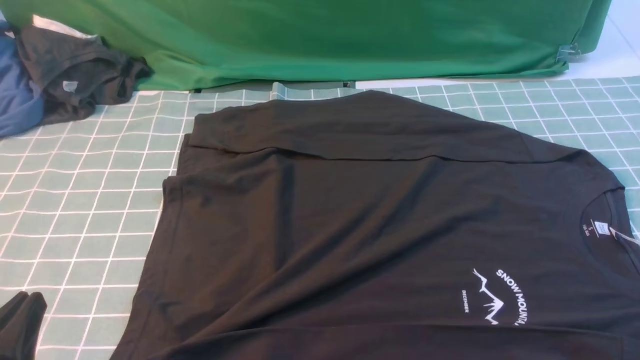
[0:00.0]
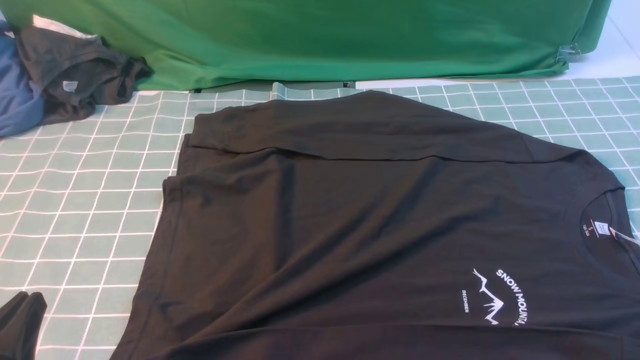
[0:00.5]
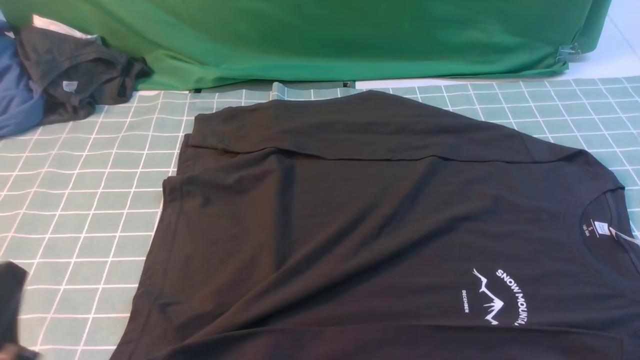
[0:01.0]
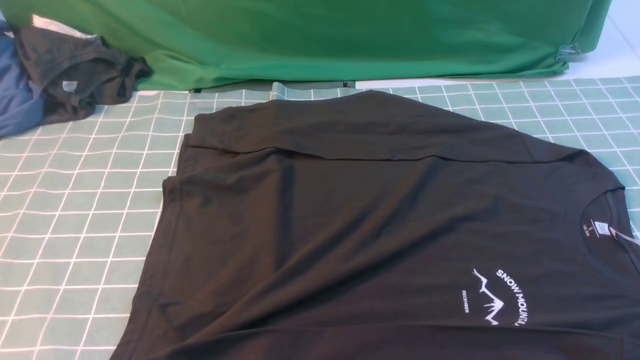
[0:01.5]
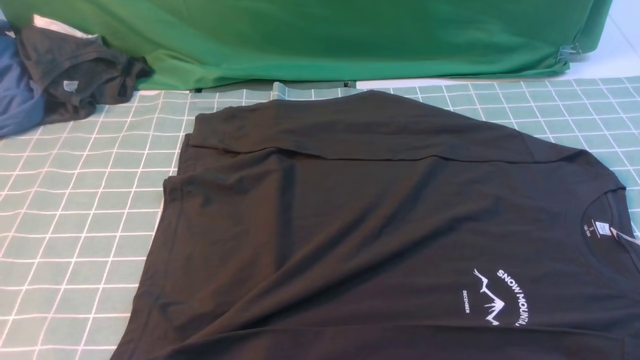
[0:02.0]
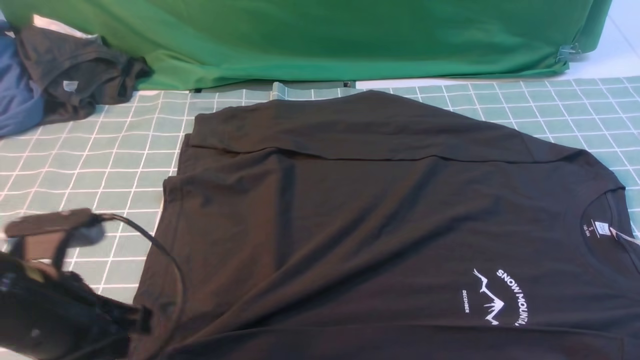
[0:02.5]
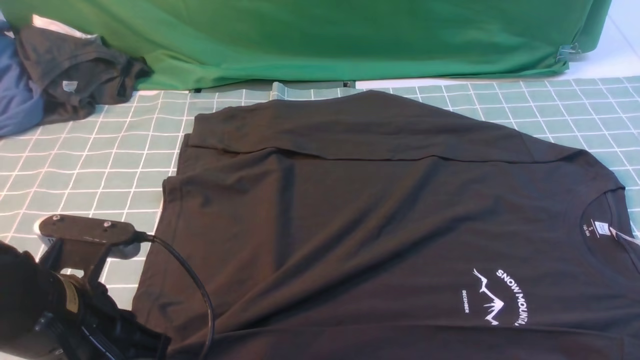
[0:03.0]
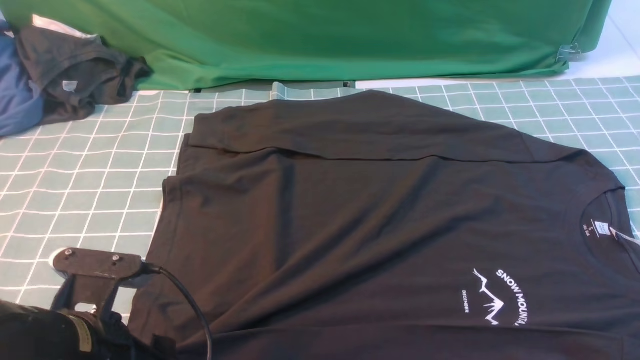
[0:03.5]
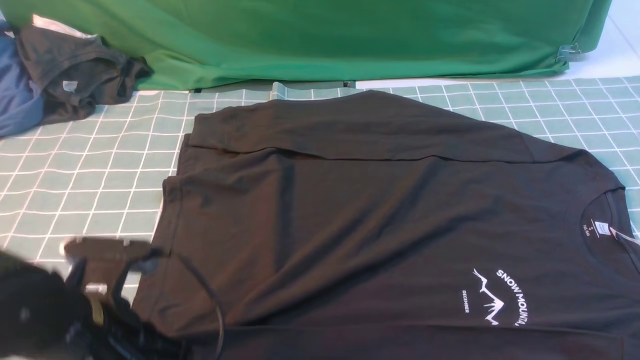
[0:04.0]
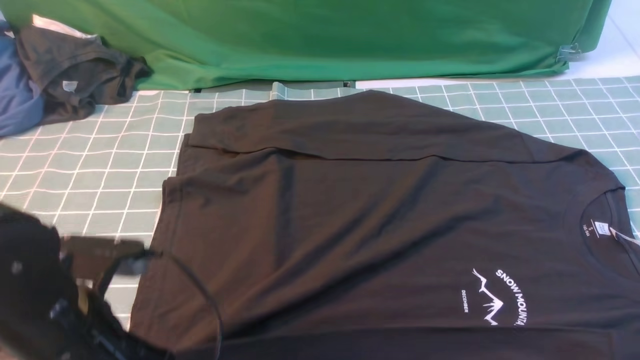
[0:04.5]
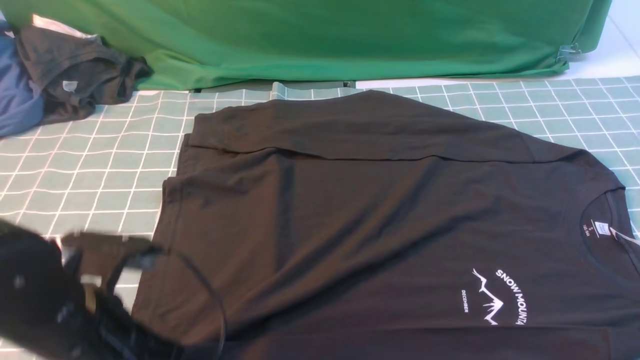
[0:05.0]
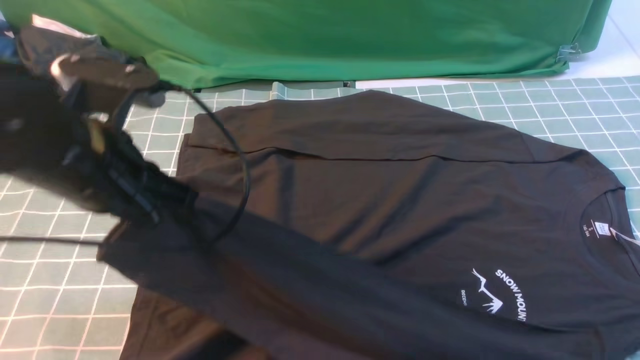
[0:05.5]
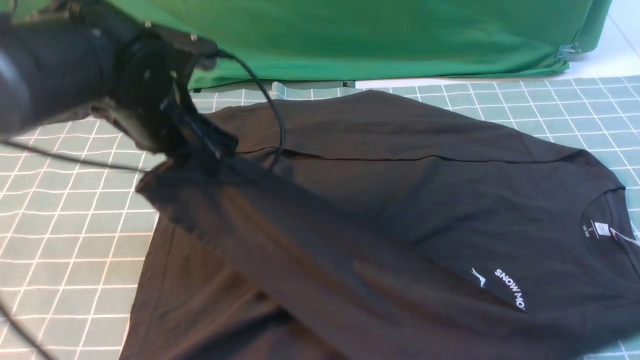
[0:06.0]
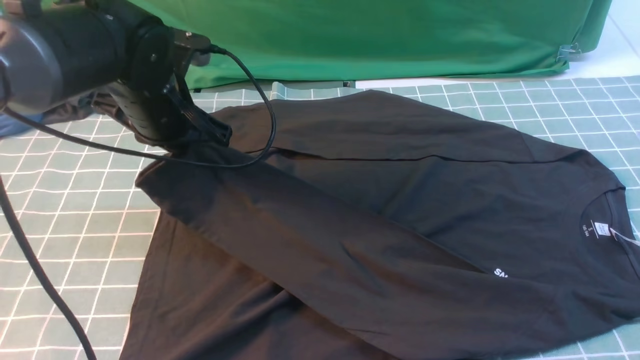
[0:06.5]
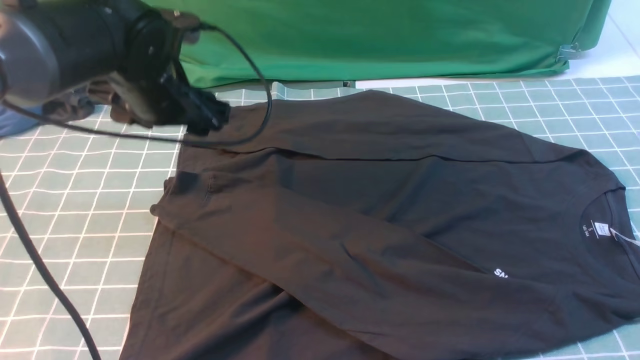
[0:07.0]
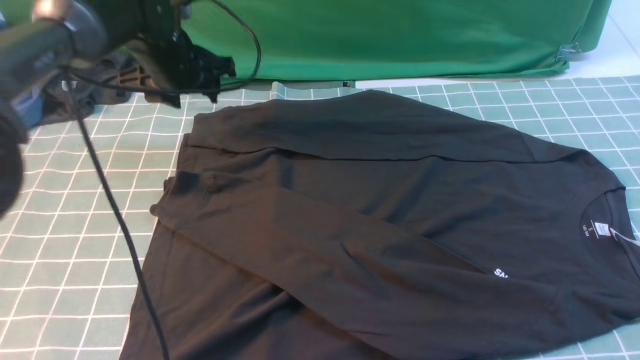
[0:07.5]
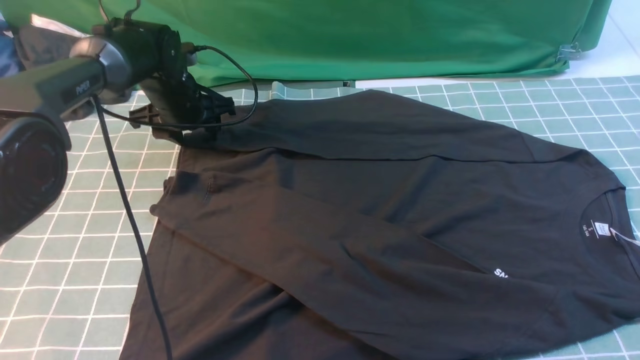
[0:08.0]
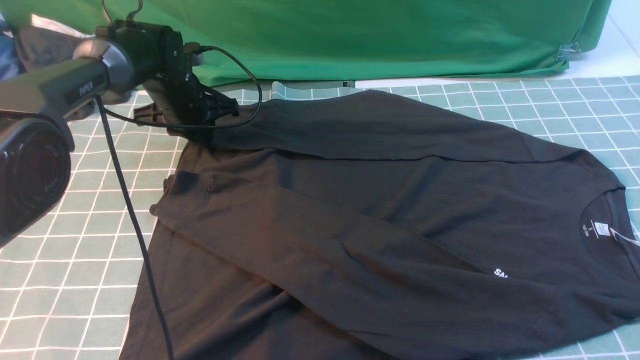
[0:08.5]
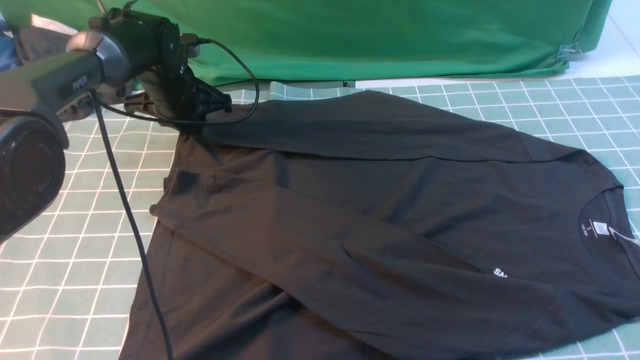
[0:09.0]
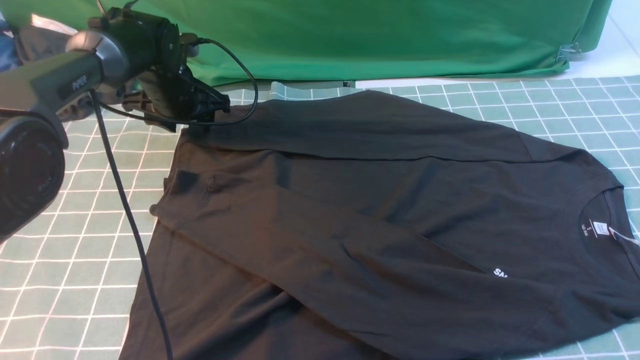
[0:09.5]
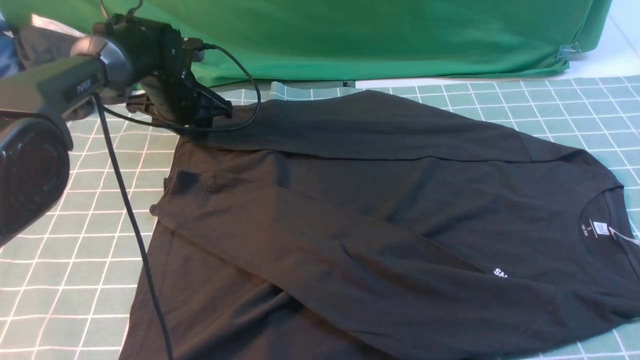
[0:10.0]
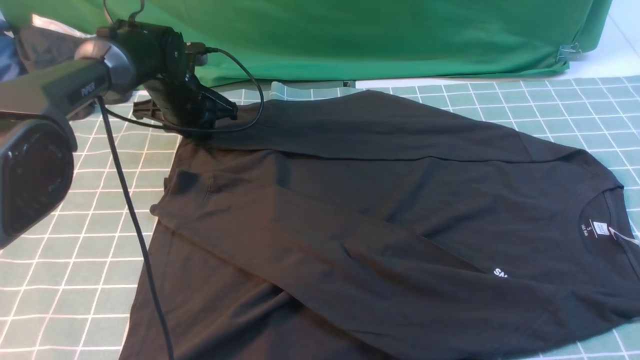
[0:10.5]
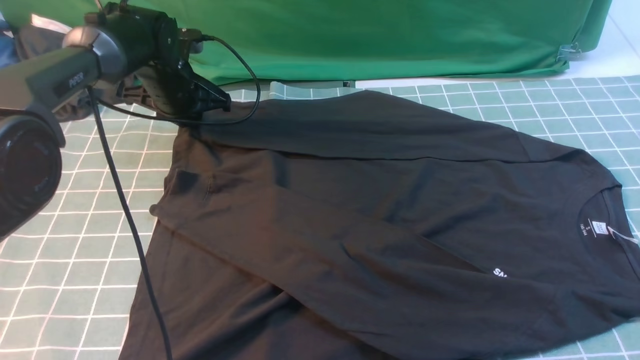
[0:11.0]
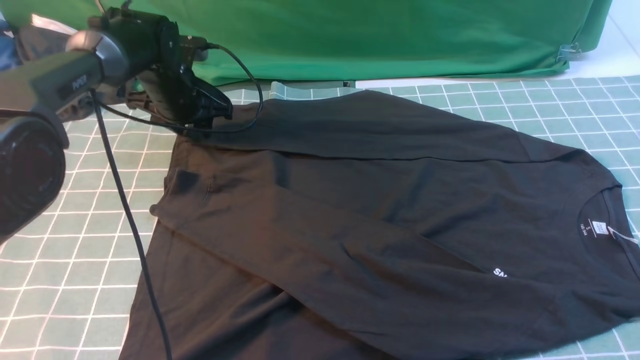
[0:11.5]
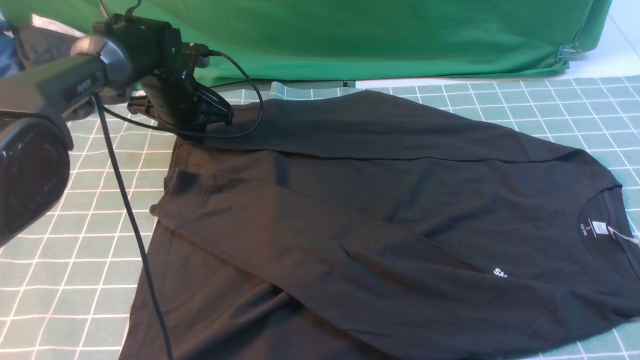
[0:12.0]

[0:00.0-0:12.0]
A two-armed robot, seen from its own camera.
Step, 0:00.0 to 0:05.0: use the left arm to clamp the cuff closest to it.
Step, 0:05.5 to 0:07.0: use the left arm to drag and place the cuff at the centered position on the left edge of the fabric.
0:00.0 to 0:02.0: The left gripper goes approximately 15 cm upward.
0:02.0 to 0:04.0: The left gripper travels downward, forward and to the right by about 15 cm, and opens, then closes once more.
0:04.0 to 0:06.0: The left gripper moves forward and upward, about 20 cm.
0:06.0 to 0:08.0: The left gripper travels forward and downward by roughly 20 cm, and opens up.
0:08.0 to 0:10.0: The left gripper closes, then reopens.
0:10.0 to 0:12.0: The left gripper closes up.

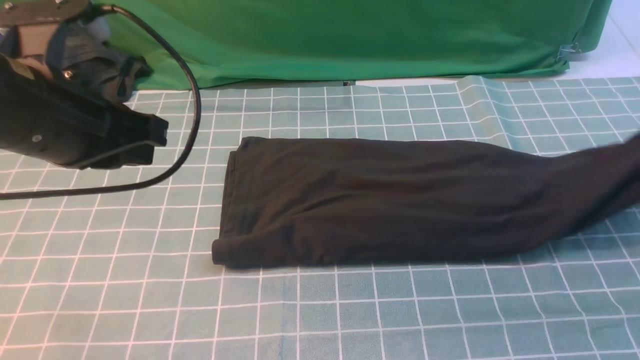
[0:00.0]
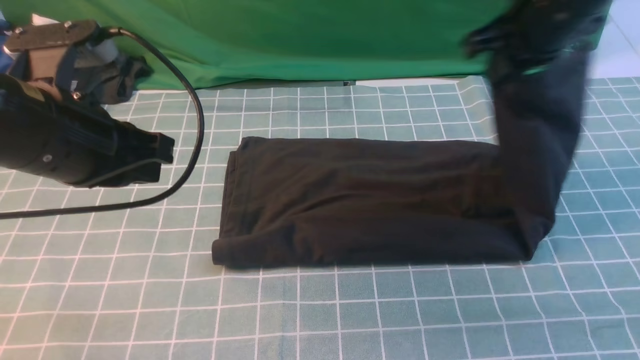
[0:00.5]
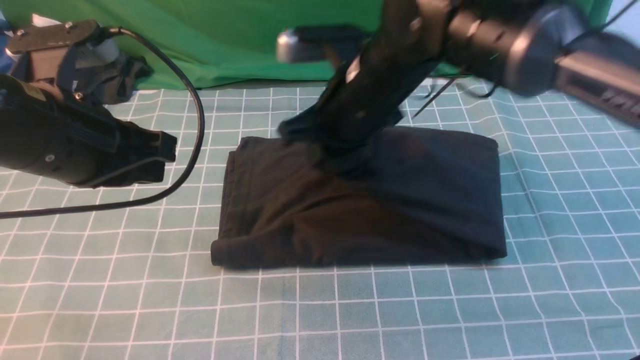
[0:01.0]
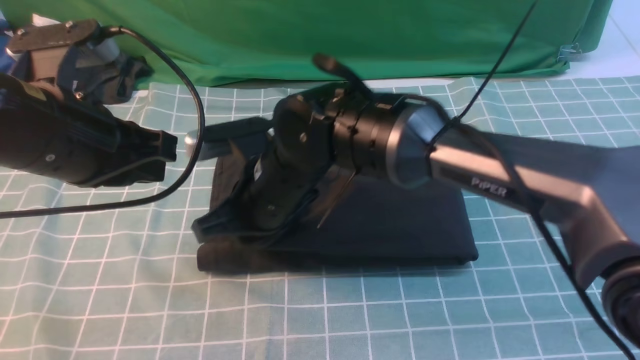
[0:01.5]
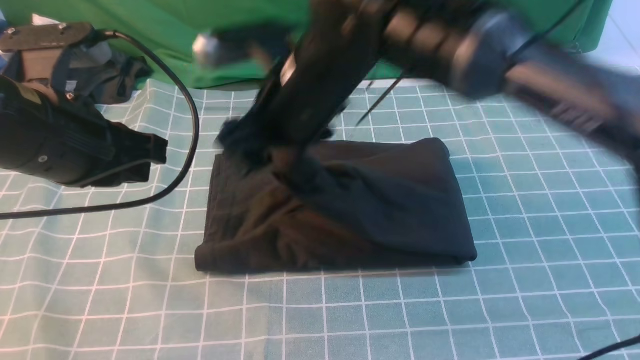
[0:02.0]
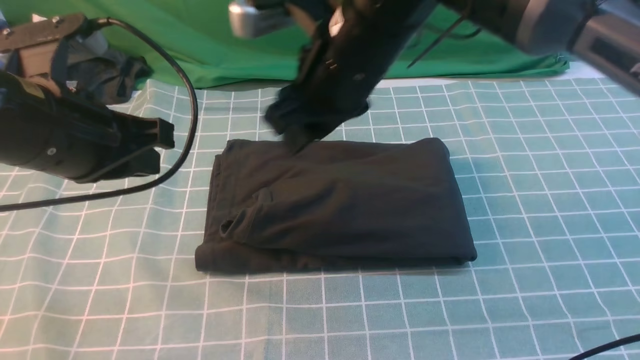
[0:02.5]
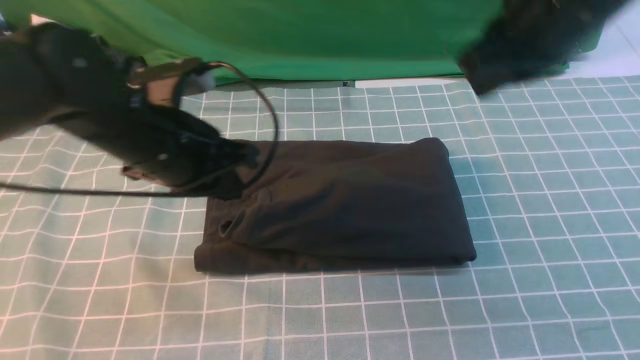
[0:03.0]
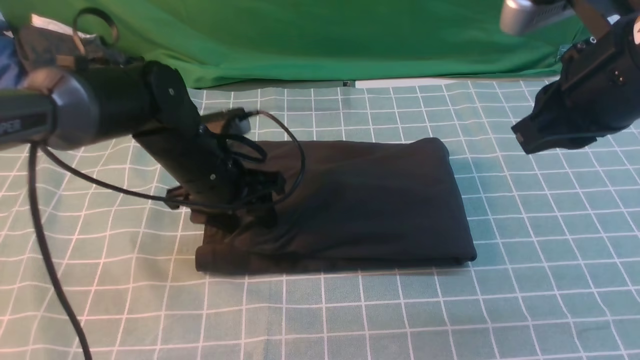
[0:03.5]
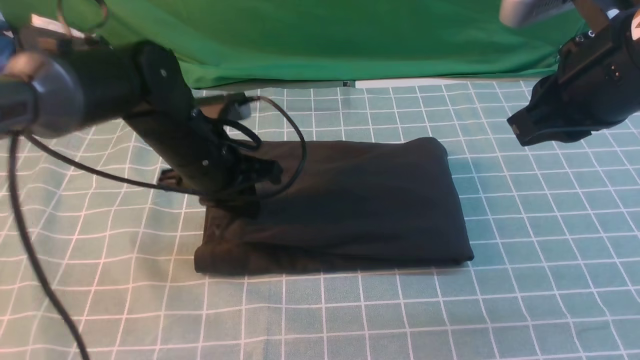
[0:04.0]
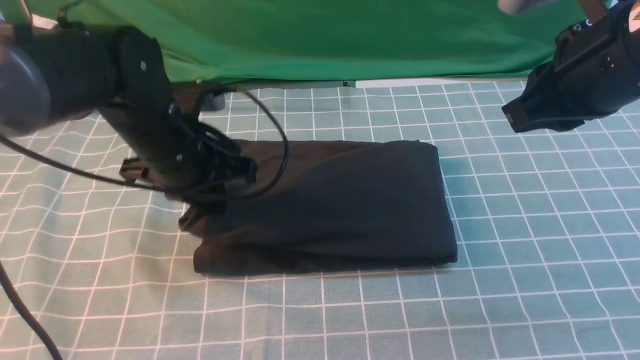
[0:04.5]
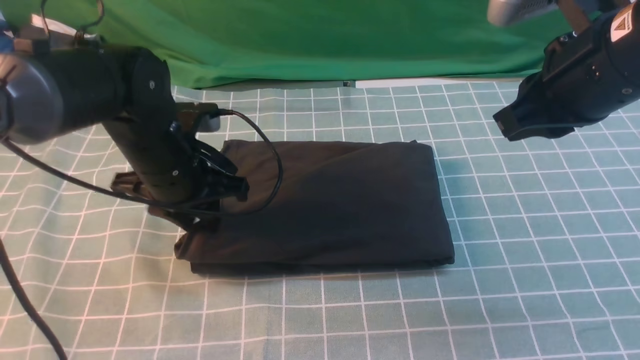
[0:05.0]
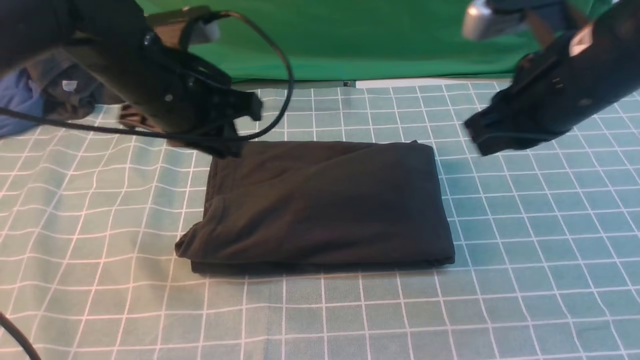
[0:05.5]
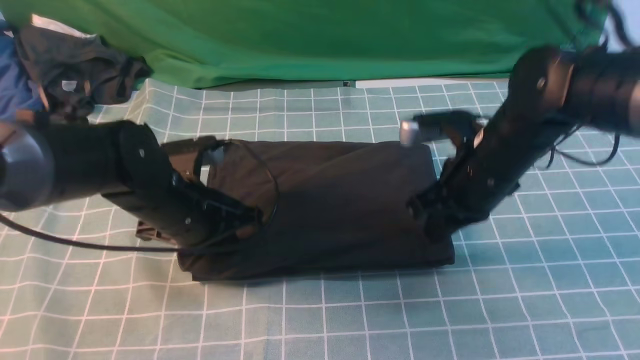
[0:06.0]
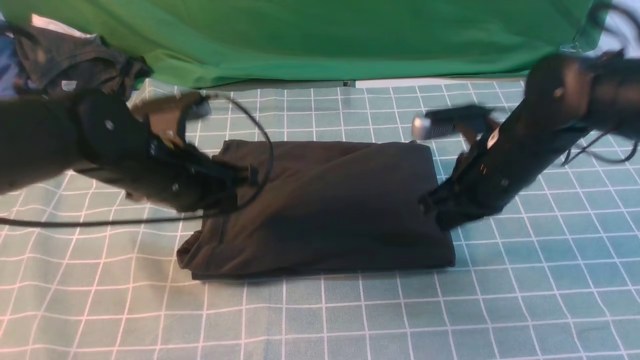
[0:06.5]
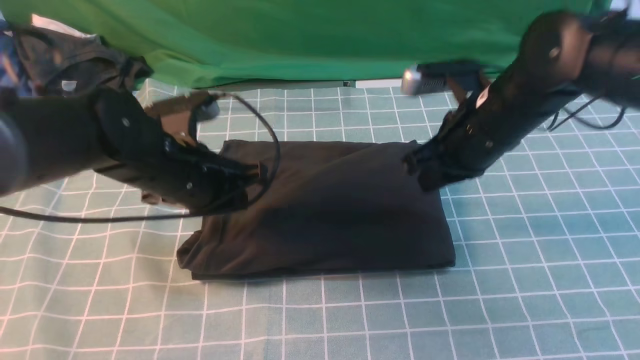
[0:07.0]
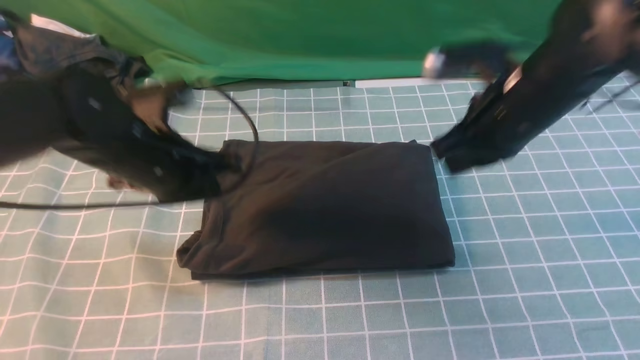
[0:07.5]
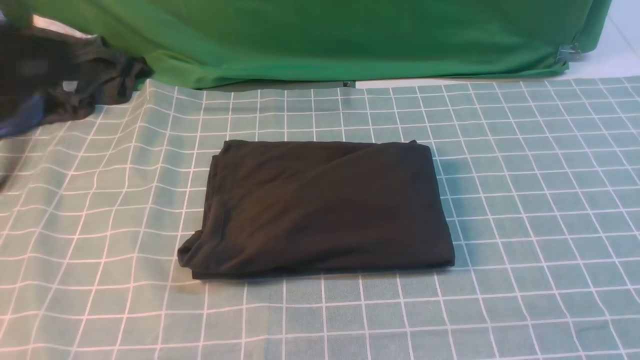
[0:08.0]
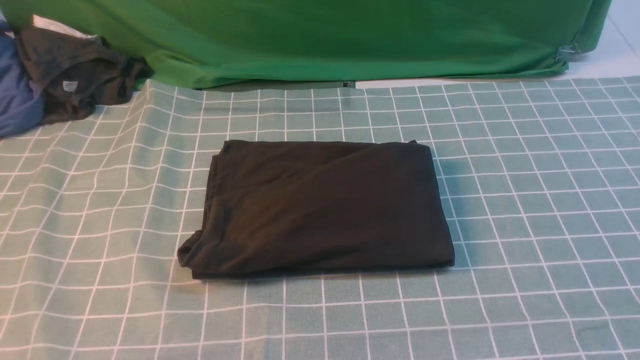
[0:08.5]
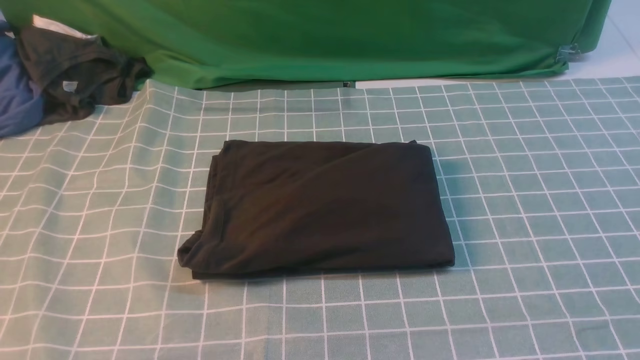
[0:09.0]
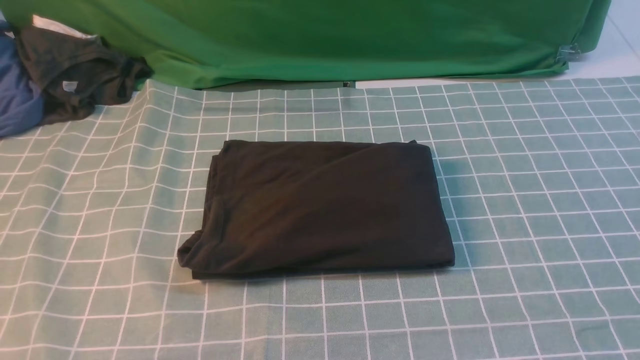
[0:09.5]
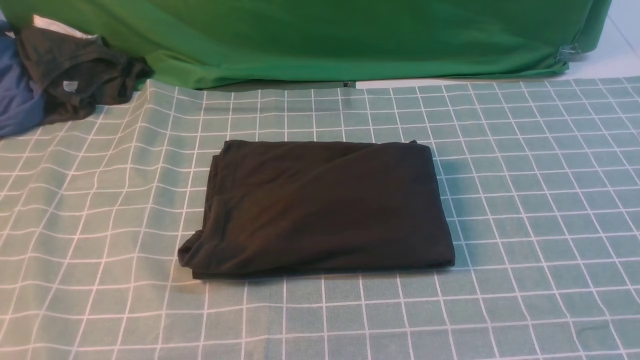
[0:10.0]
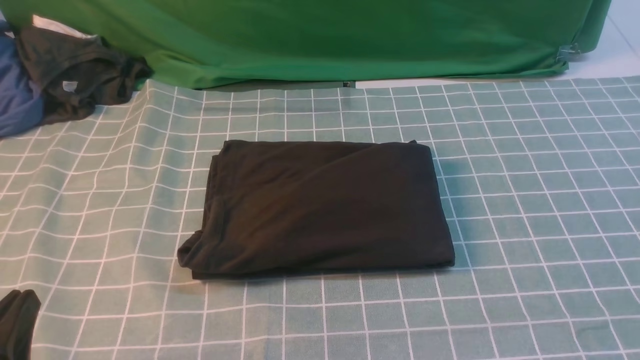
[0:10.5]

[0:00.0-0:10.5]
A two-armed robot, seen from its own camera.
Step, 0:00.0 to 0:02.0: use the right arm to drag the right edge of the fabric to the left and folds it over the left edge.
0:00.0 to 0:02.0: The right gripper is displaced to the left by approximately 40 cm, and opens.
0:02.0 to 0:04.0: The right gripper moves to the right, some 20 cm, and closes, while the left gripper is displaced downward, forward and to the right by approximately 15 cm, and opens and closes again.
0:04.0 to 0:06.5: The left gripper moves up and down over approximately 10 cm, changing direction 2 times, and opens and closes again. The right gripper moves downward and forward, approximately 15 cm.
0:06.5 to 0:08.5: The right gripper moves backward, upward and to the right, approximately 40 cm. The left gripper moves backward and upward, about 35 cm.
0:08.5 to 0:10.5: The left gripper travels downward by approximately 20 cm.
